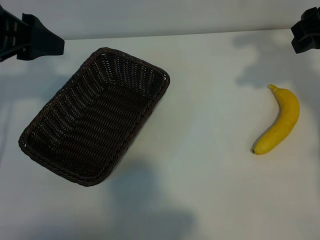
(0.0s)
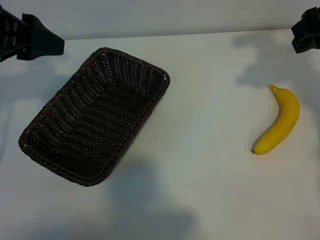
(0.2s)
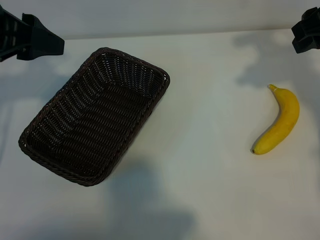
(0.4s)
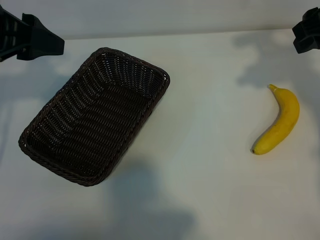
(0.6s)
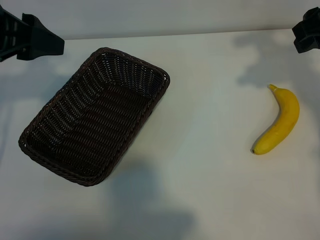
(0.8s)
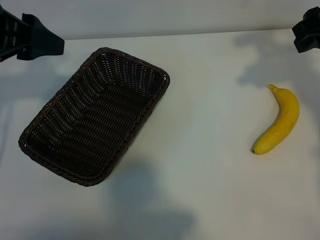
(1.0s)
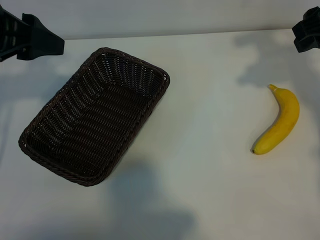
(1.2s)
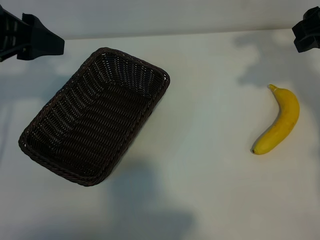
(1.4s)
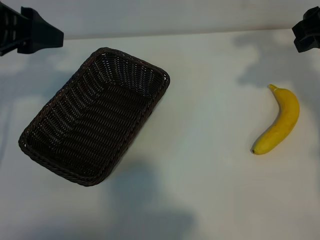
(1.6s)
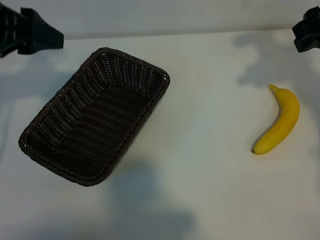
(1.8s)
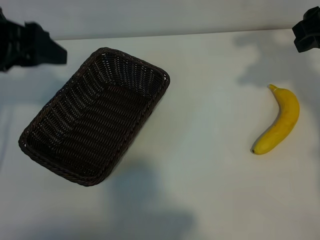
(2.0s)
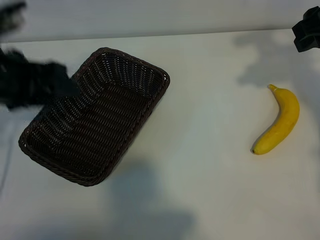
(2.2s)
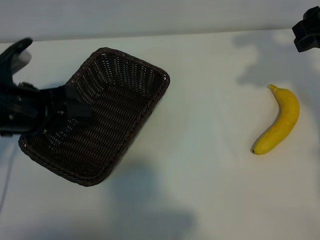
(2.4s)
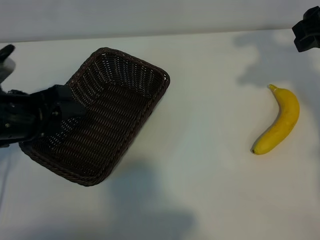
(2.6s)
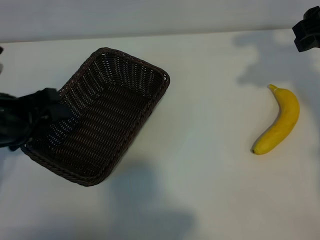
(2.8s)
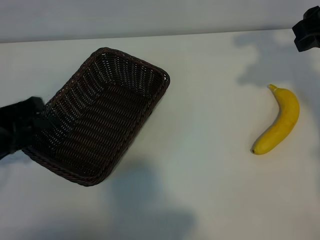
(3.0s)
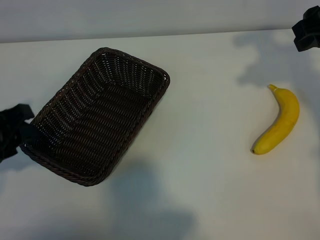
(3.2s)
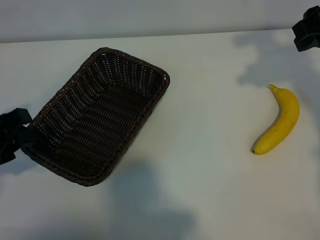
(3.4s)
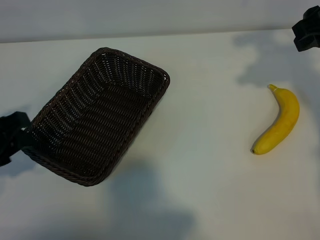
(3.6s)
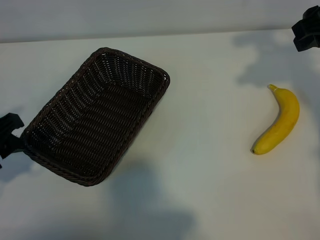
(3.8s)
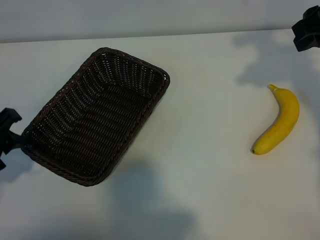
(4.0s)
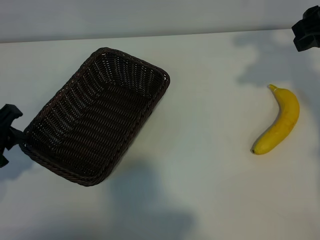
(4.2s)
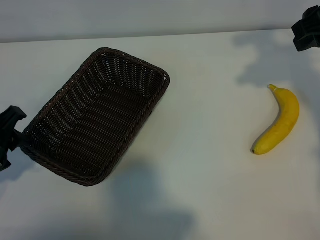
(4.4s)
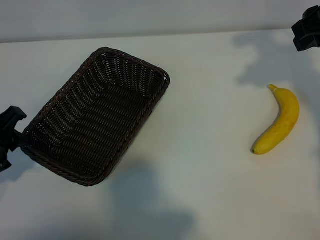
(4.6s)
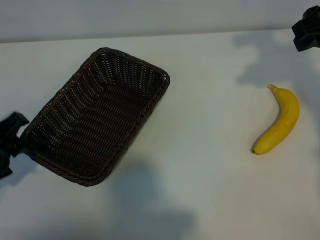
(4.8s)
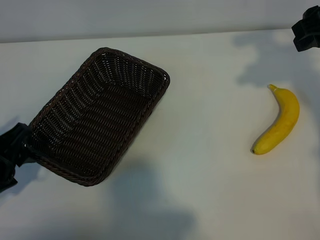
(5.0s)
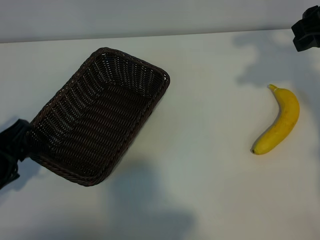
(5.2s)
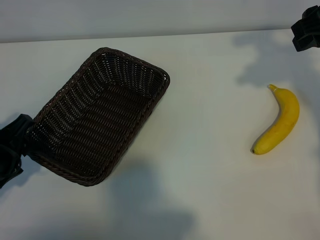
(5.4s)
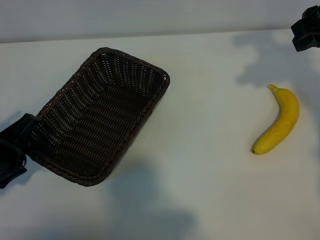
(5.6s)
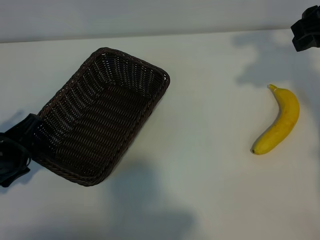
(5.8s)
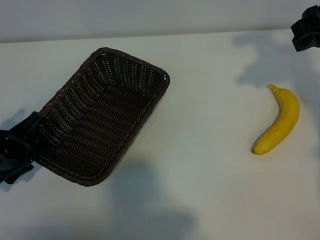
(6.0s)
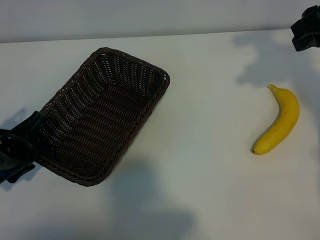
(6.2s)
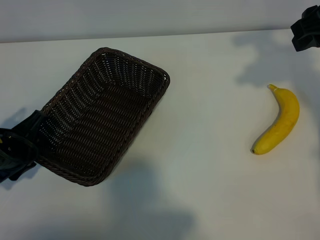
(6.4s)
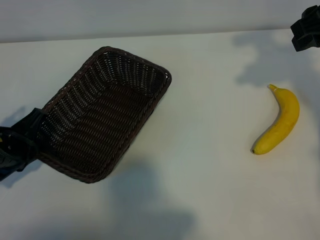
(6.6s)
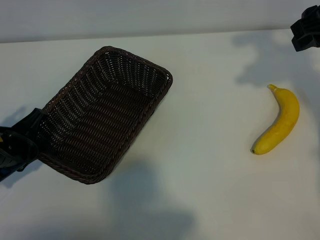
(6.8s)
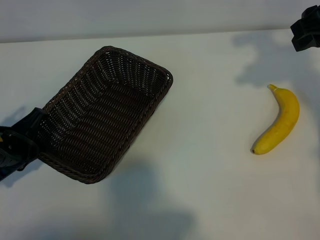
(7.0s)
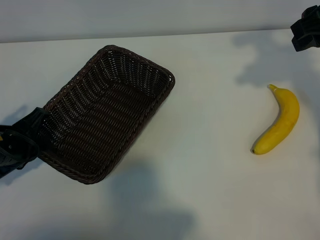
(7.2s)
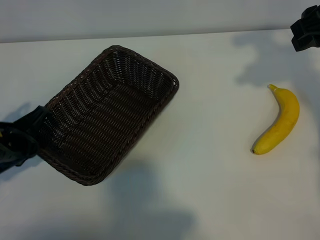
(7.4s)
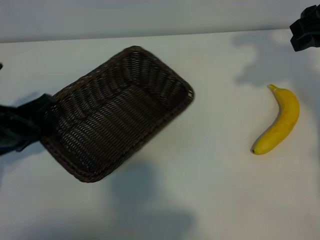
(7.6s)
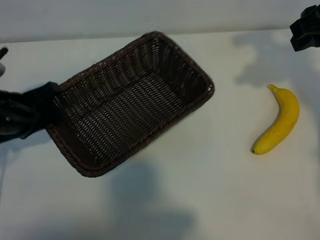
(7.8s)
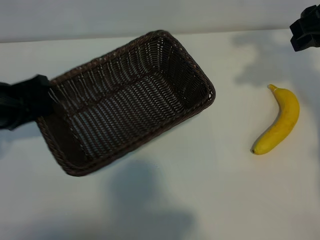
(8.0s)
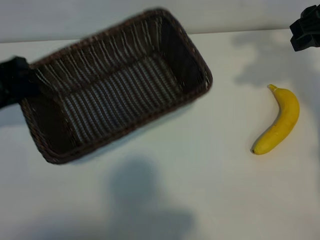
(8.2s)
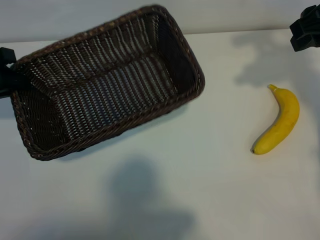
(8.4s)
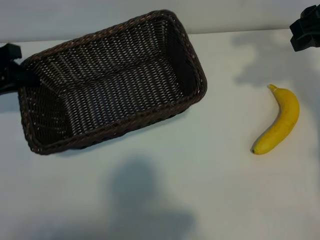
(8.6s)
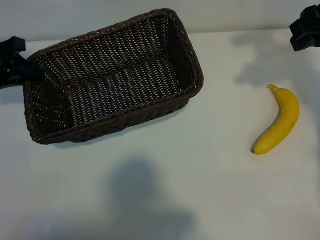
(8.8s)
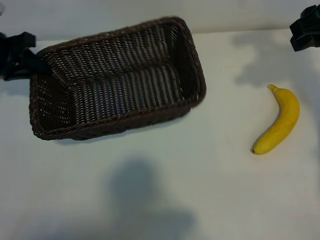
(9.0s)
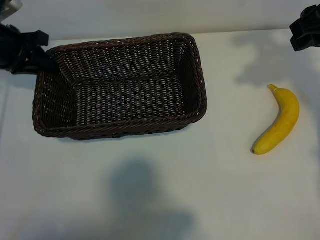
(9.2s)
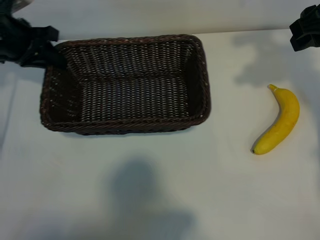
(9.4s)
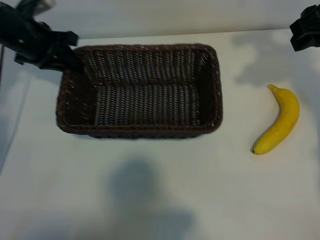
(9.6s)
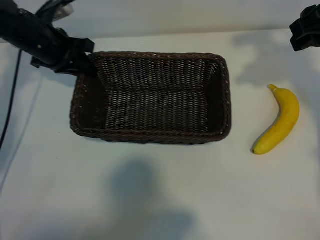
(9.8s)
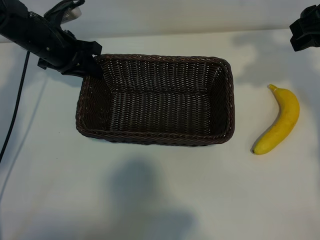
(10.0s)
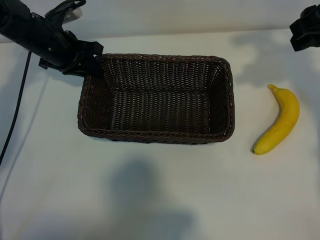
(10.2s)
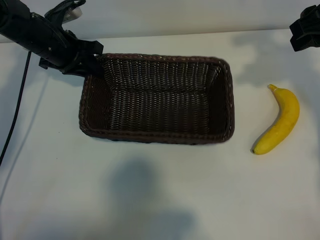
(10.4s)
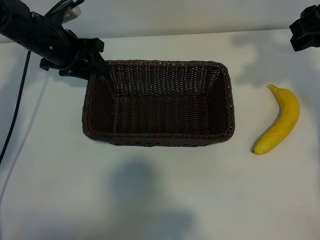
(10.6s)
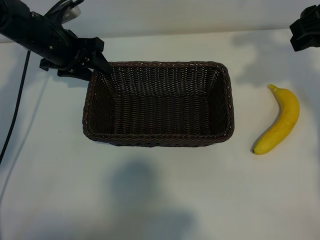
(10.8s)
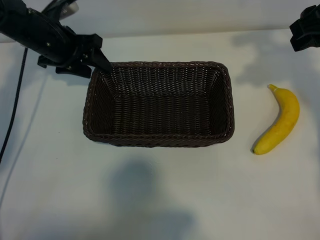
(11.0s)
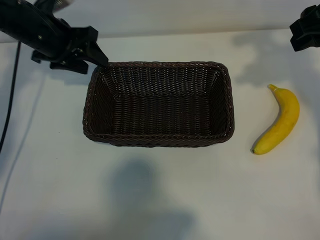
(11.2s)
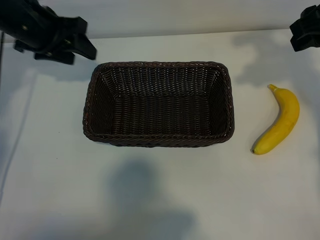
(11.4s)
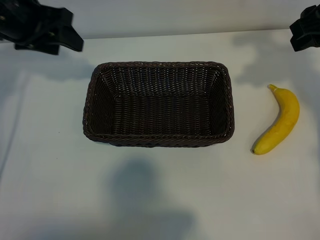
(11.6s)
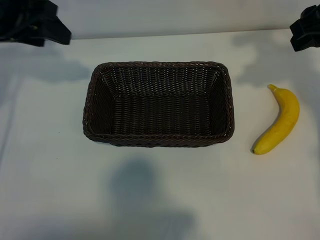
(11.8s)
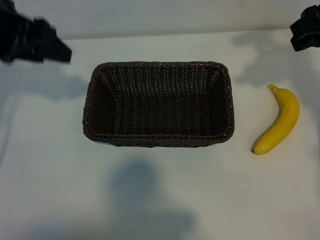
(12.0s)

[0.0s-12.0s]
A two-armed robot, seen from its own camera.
Task of the whole recording: pick up the banana and put it into the basket.
Step, 0.6s to 6.6s: Grasp the basket with the left gripper.
Step, 7.0s to 10.6s: Place the basket in the center of the table with the left gripper.

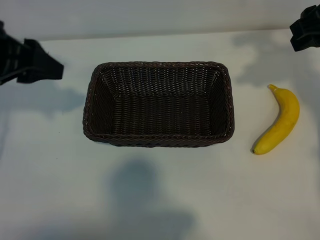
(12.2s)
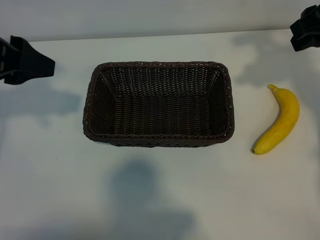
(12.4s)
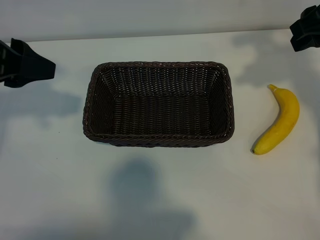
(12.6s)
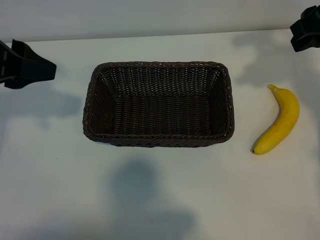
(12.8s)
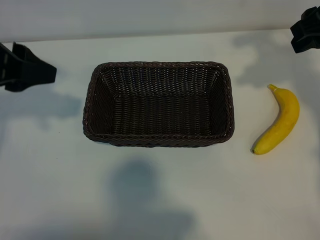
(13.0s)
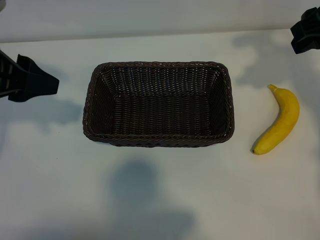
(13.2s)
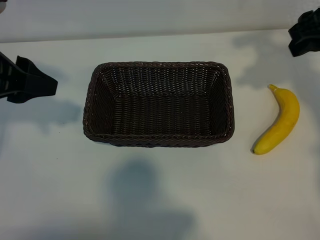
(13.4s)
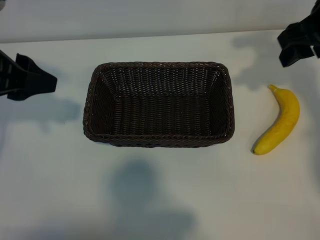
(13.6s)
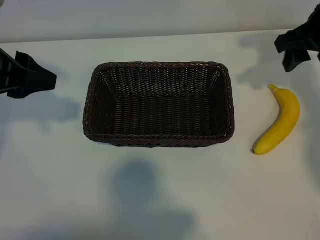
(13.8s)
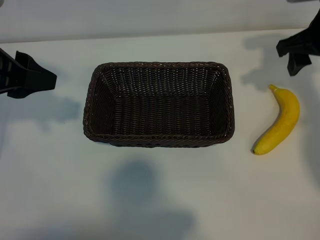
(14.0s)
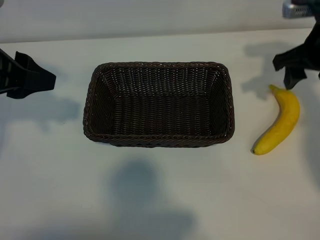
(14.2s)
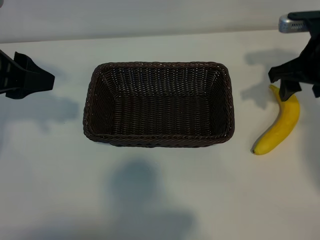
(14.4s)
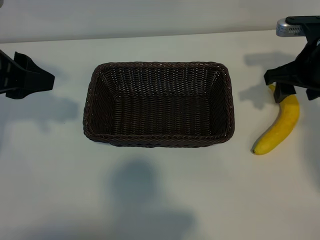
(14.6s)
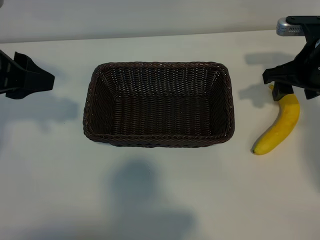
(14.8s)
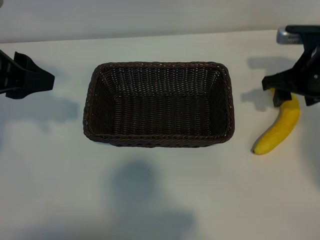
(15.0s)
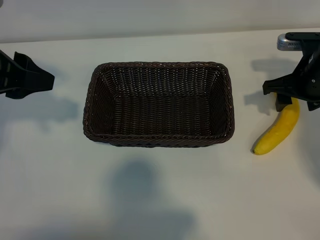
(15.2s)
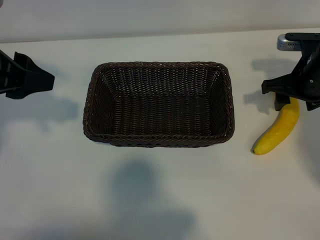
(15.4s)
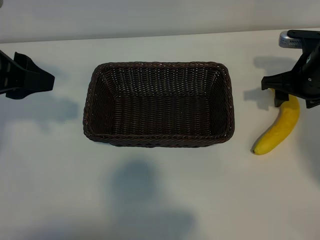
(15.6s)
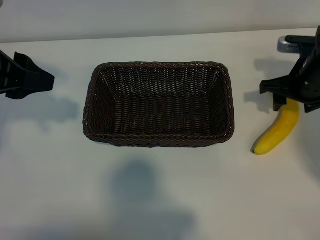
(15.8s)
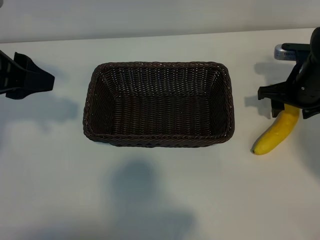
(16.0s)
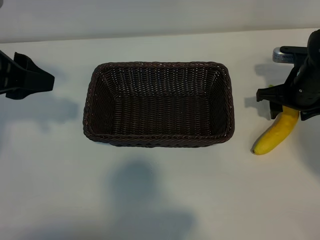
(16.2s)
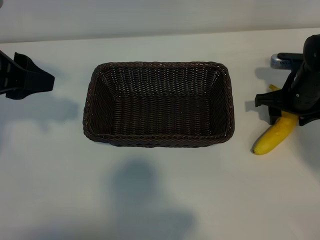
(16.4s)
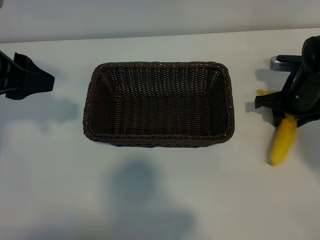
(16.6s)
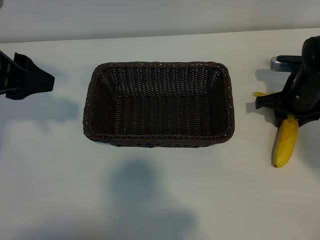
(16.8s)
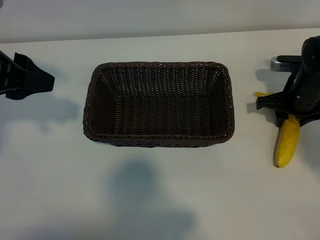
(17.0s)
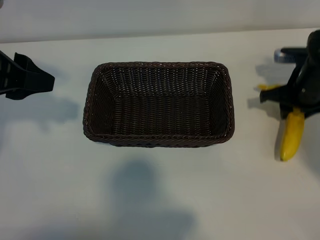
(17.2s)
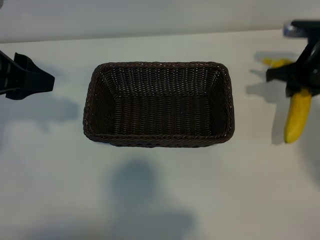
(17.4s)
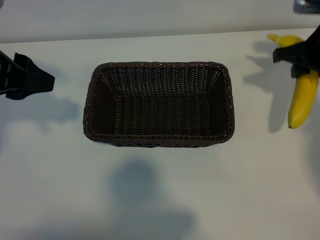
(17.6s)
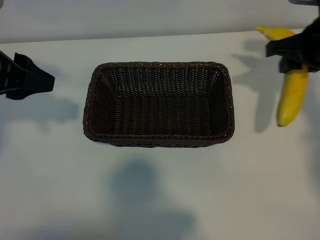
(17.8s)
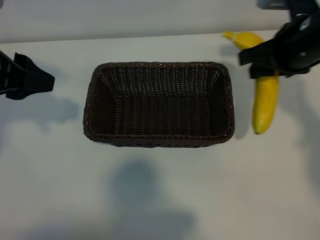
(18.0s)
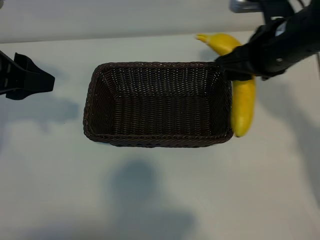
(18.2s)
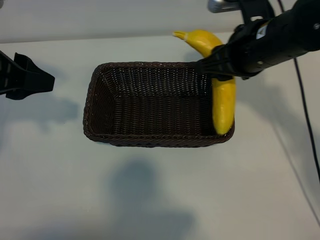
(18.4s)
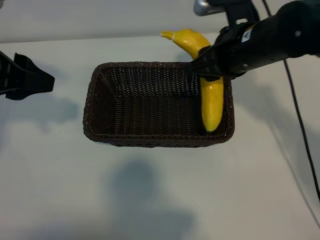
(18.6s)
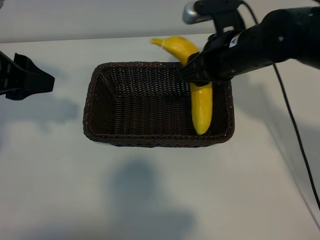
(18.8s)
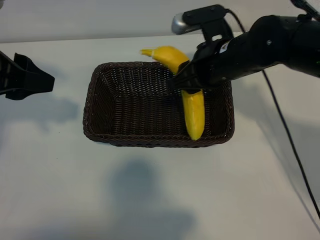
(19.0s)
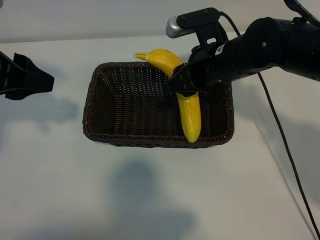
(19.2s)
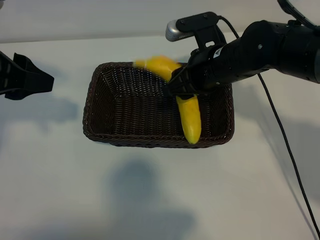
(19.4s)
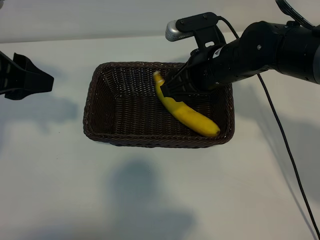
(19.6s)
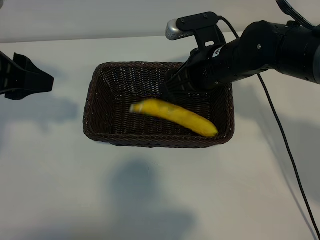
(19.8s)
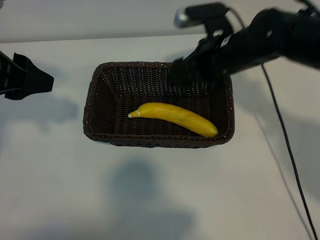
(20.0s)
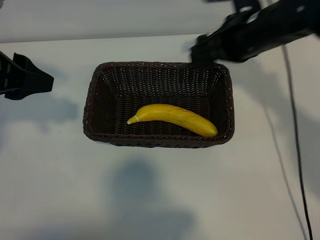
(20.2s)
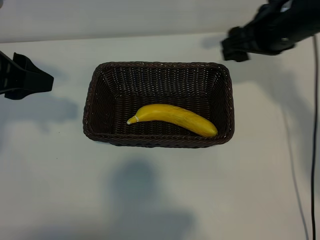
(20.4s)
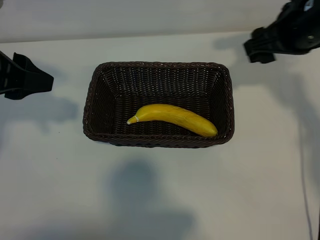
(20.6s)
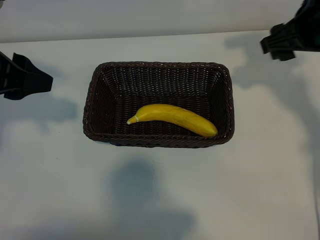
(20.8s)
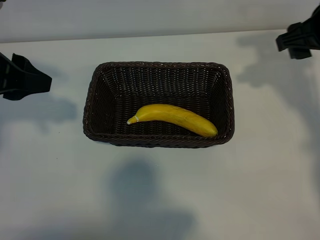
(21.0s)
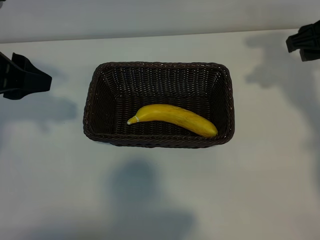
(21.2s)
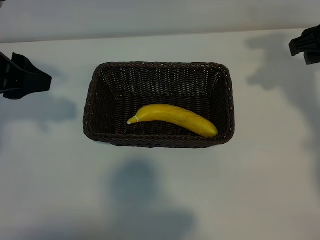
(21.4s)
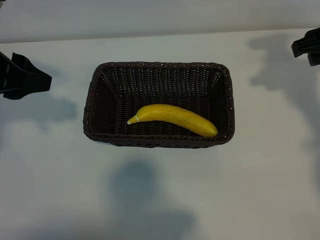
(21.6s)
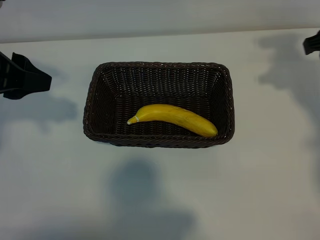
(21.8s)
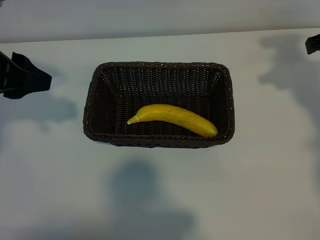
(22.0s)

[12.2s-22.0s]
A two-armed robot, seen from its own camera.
Task of the whole recording: pick up the banana and put it into the basket.
Step, 12.2s to 16.6s: Grasp the banana with right gripper.
Step, 17.0s to 19.8s: Place the banana in the basket with right gripper.
